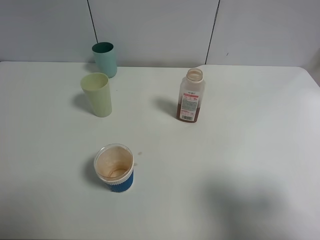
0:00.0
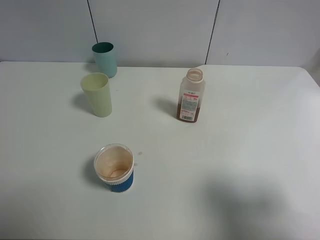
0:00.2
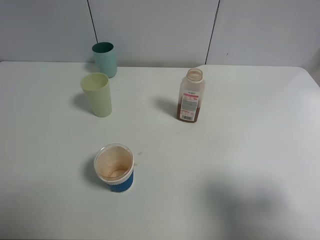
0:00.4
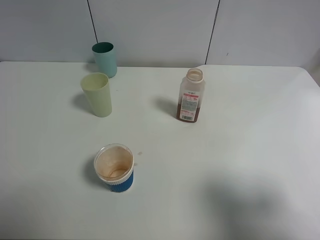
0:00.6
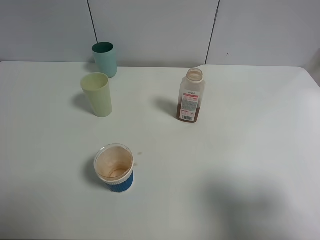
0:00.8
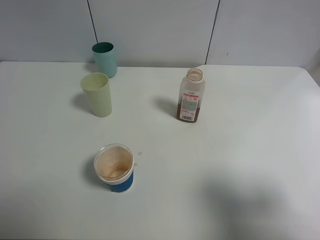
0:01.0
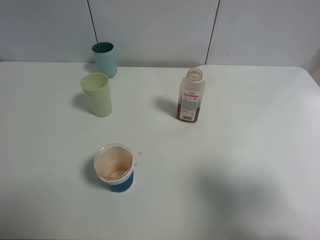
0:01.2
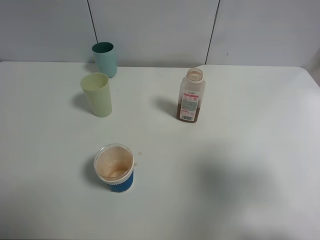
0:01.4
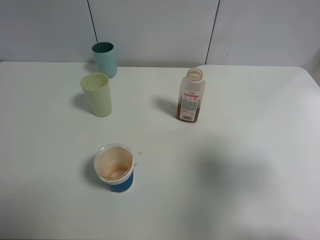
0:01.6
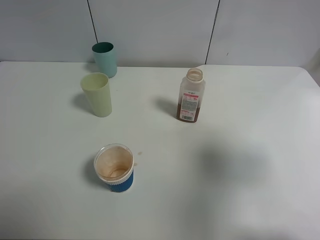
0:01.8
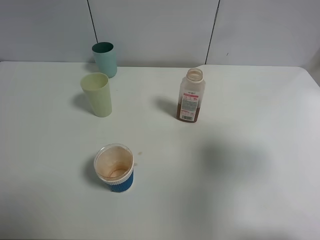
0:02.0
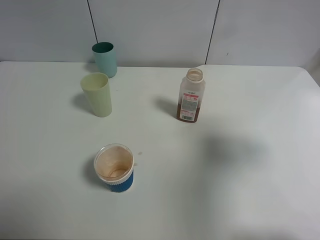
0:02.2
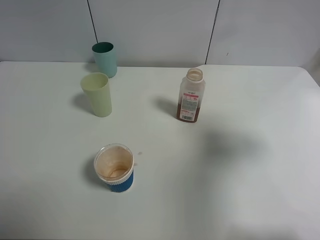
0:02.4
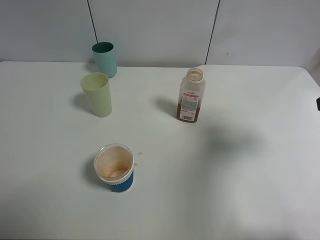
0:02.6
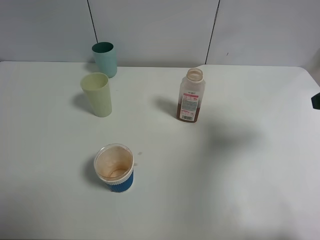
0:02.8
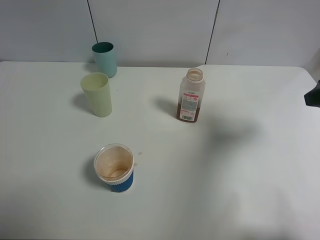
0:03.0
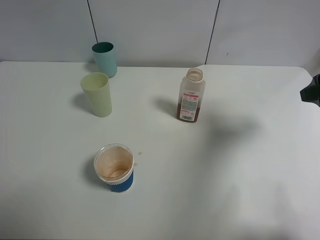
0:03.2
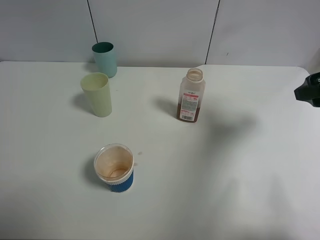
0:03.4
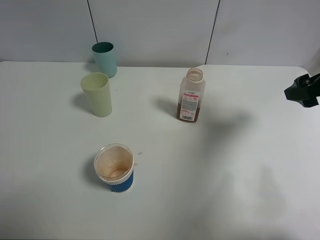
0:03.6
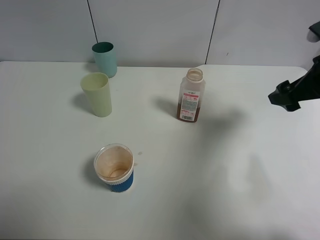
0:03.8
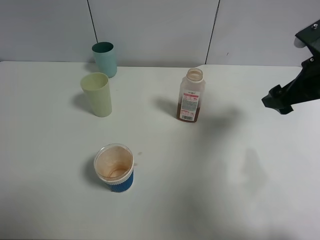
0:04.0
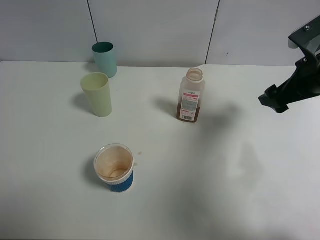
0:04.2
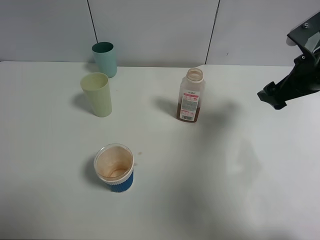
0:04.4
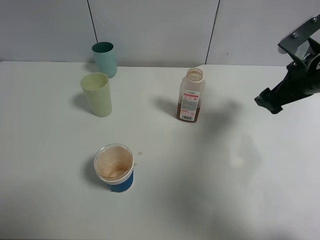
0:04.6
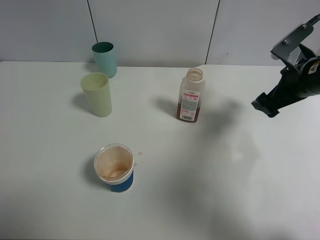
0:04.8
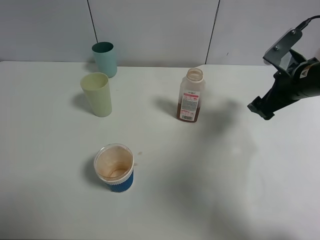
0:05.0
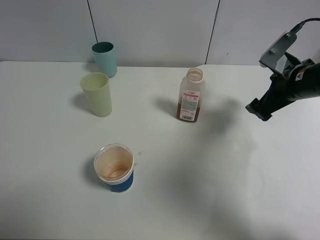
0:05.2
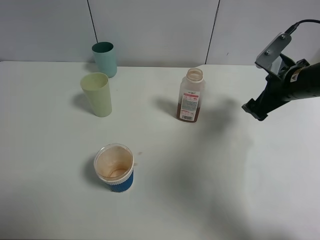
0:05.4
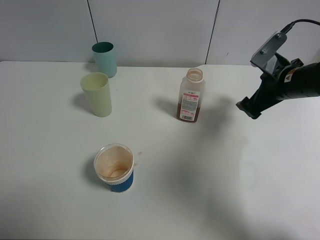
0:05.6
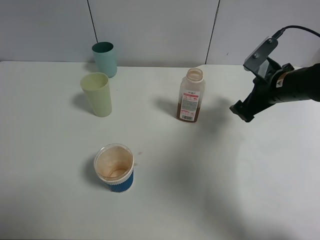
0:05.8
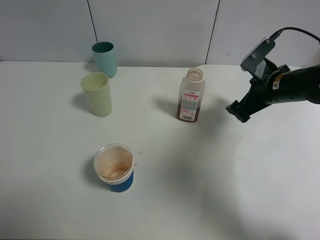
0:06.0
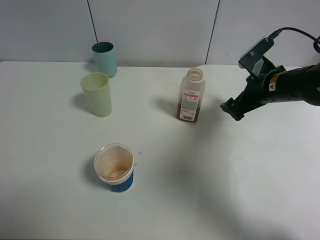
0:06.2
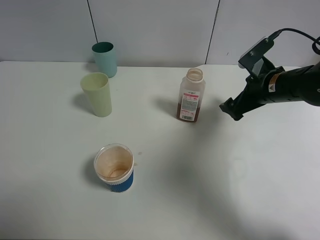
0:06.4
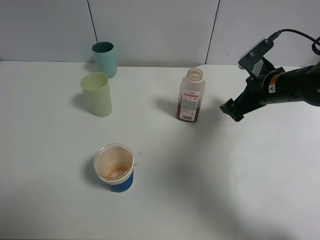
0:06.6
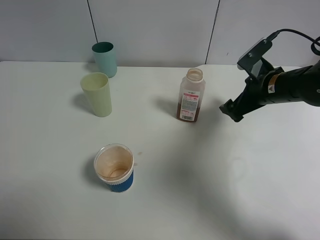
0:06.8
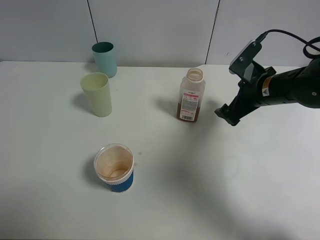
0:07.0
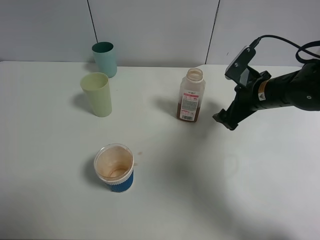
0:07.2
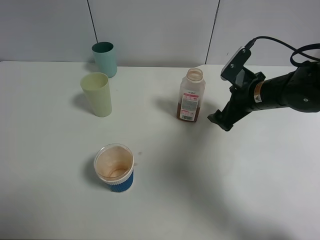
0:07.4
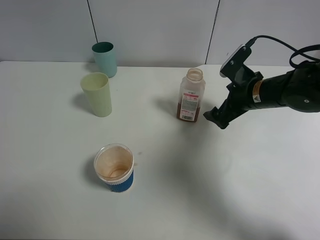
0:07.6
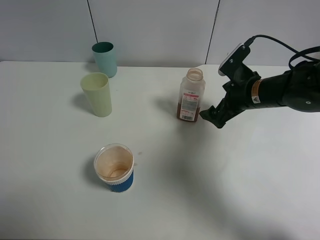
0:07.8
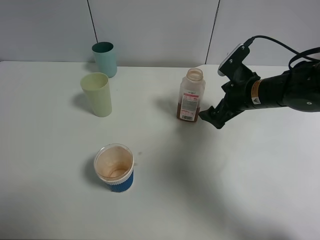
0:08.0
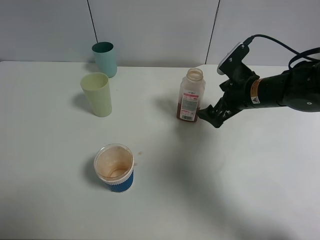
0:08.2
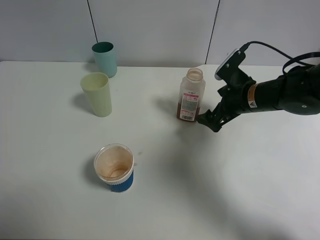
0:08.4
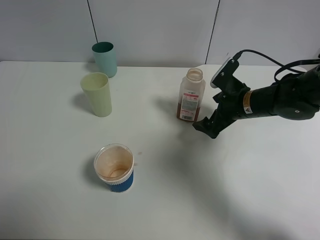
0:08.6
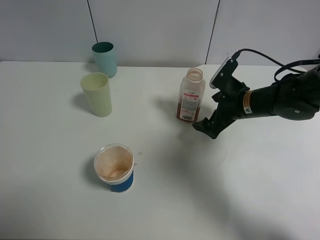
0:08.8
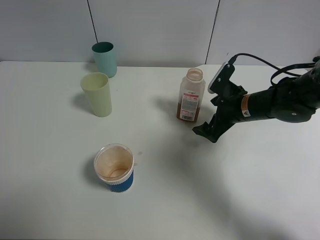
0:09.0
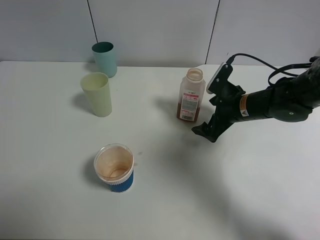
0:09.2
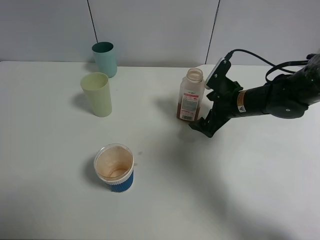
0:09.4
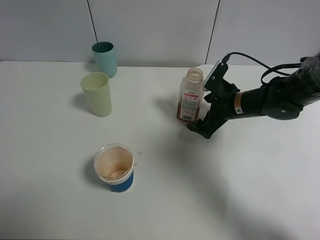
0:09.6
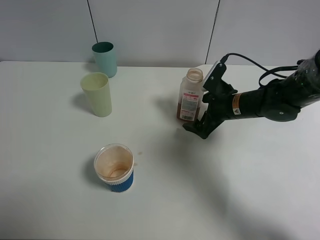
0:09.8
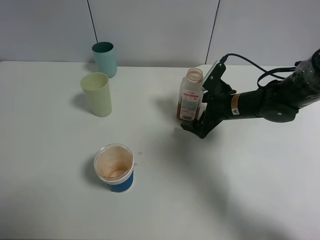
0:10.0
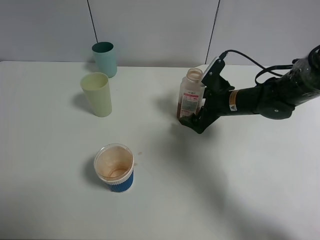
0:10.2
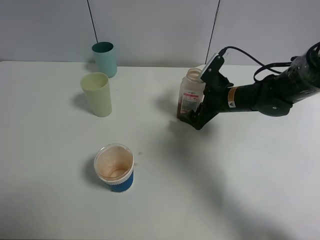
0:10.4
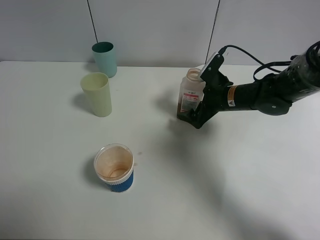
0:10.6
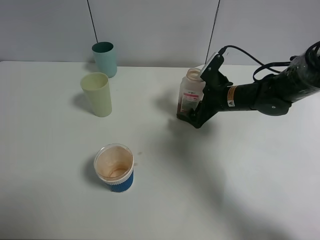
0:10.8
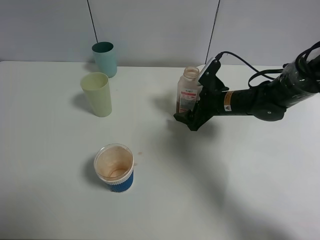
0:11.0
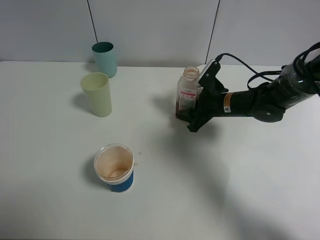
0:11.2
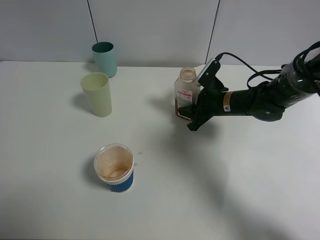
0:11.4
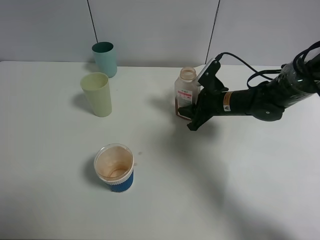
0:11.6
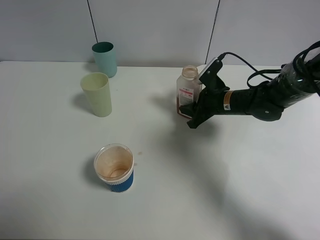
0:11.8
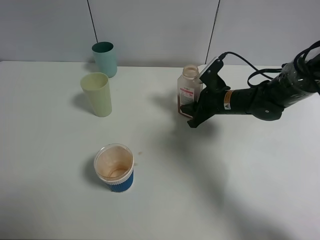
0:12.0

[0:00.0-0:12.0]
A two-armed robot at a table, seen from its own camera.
Task of the whole recording: use a clamp to hold the bottle of the drink, pour the beverage into a random cup, then clamp the cup containing the drink and pour the drink into another random cup.
0:00.0 to 0:01.6: The right gripper is displaced forward by approximately 5 cm.
0:01.6 to 0:03.0: The right gripper shifts approximately 10 cm forward.
0:03.0 to 0:04.4: The right gripper is displaced forward and downward by approximately 10 cm.
0:04.4 to 0:06.0: The right gripper heads downward, covering about 5 cm.
0:06.0 to 0:07.6: The grippers move only a little.
0:07.6 to 0:09.0: The grippers stay close to where they were, moving slightly.
0:09.0 to 0:10.4: The grippers move only a little.
0:10.4 to 0:12.0: The right gripper closes its fingers.

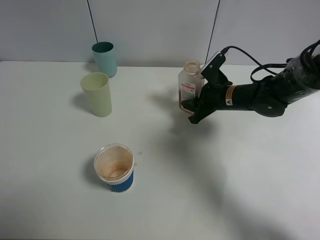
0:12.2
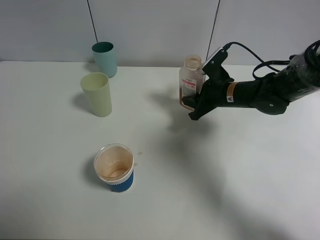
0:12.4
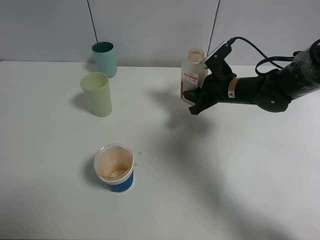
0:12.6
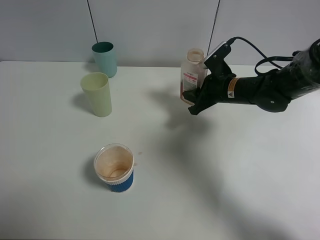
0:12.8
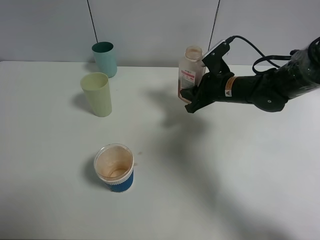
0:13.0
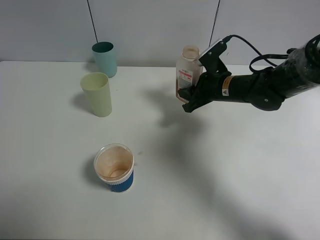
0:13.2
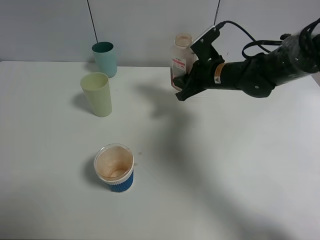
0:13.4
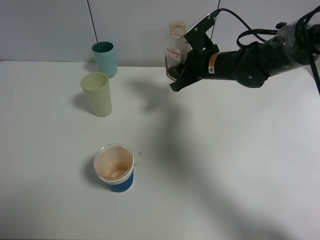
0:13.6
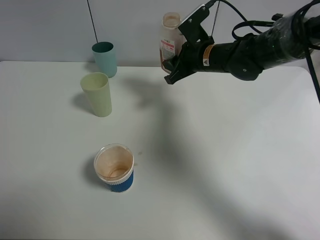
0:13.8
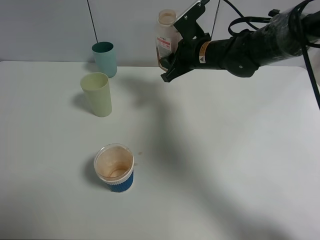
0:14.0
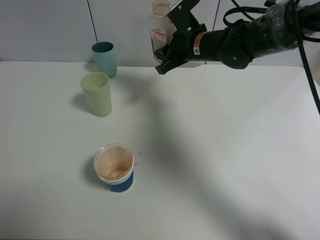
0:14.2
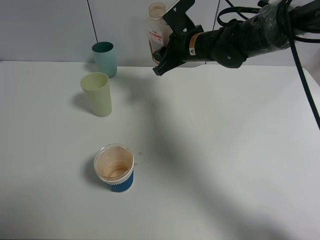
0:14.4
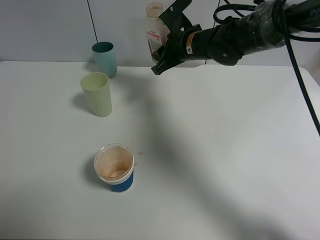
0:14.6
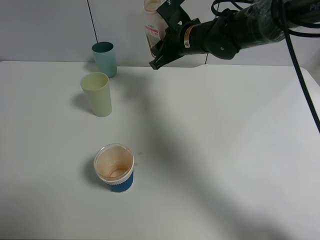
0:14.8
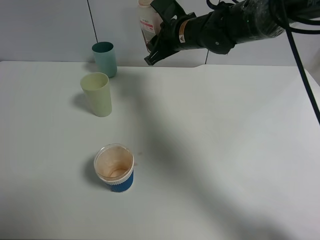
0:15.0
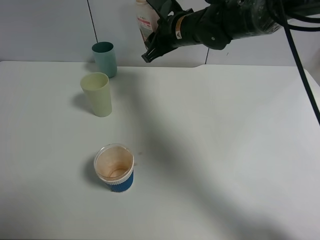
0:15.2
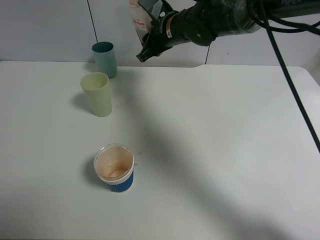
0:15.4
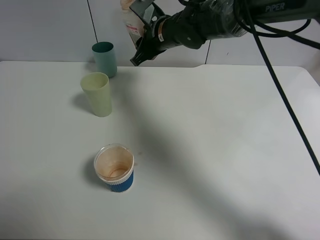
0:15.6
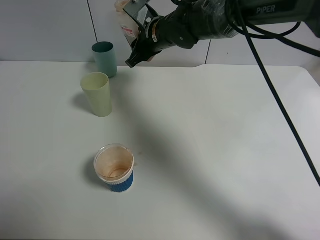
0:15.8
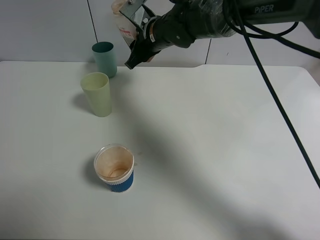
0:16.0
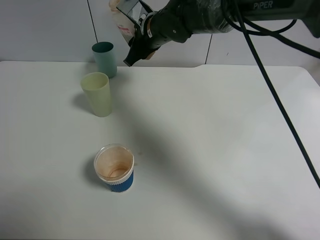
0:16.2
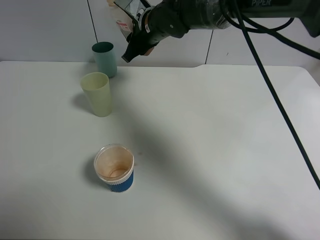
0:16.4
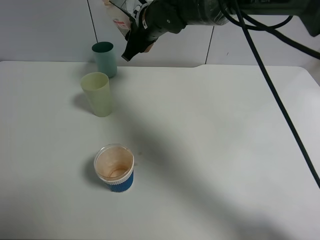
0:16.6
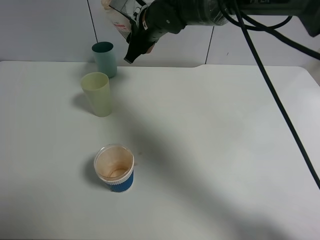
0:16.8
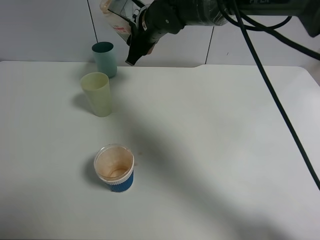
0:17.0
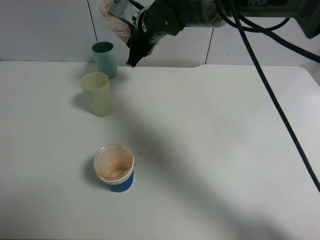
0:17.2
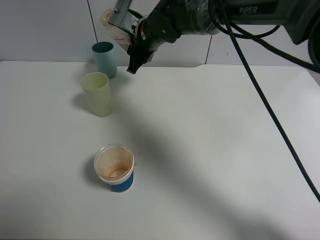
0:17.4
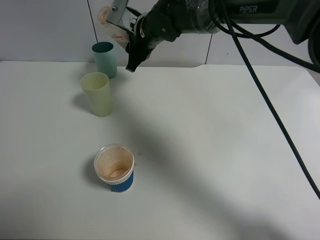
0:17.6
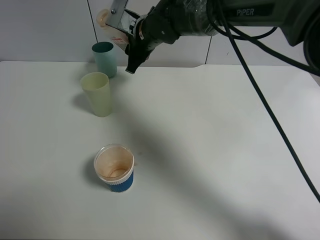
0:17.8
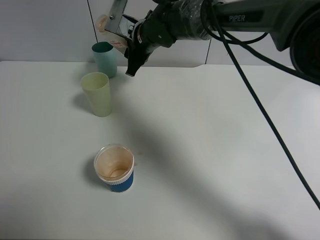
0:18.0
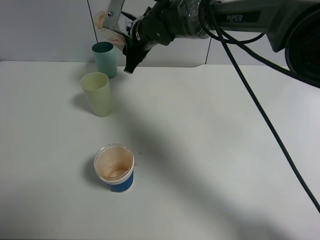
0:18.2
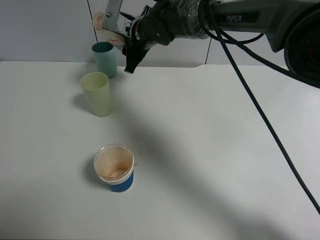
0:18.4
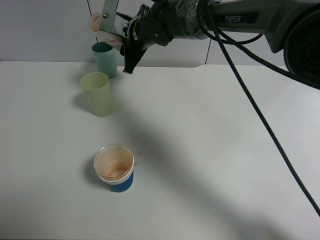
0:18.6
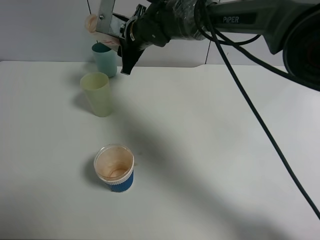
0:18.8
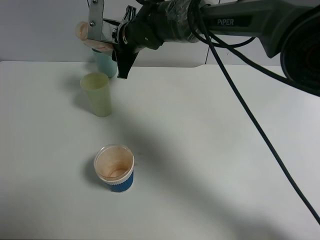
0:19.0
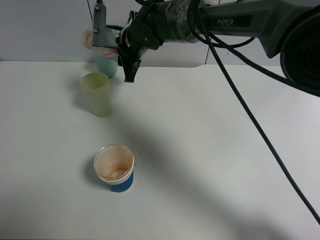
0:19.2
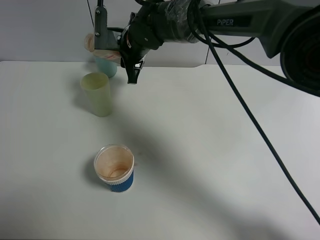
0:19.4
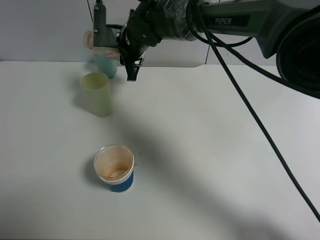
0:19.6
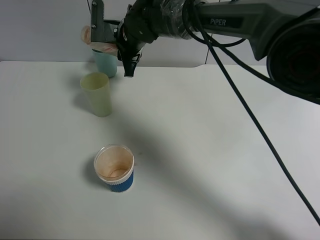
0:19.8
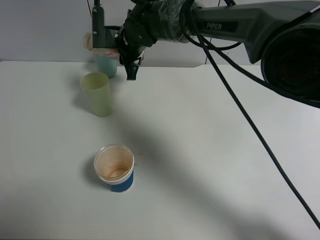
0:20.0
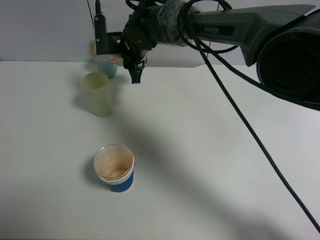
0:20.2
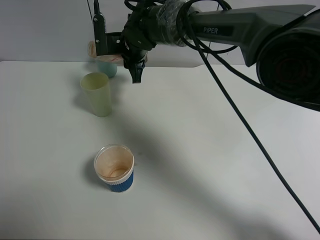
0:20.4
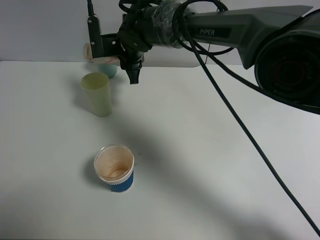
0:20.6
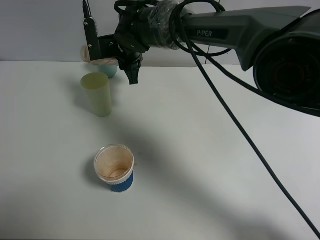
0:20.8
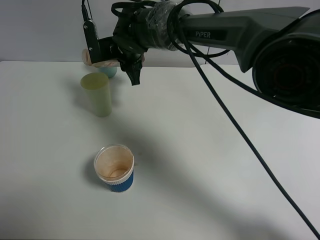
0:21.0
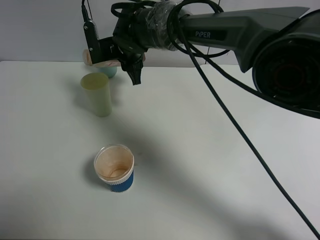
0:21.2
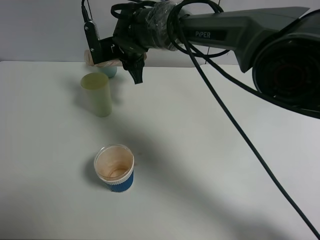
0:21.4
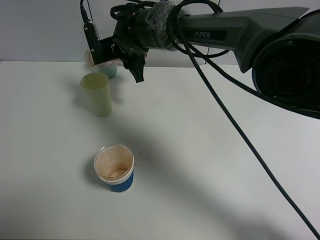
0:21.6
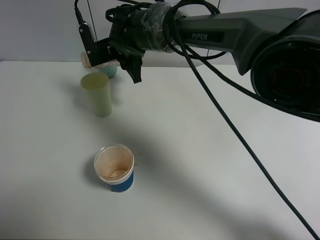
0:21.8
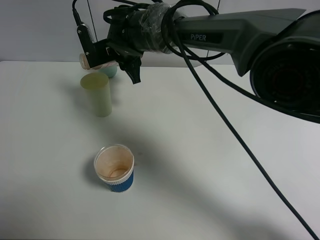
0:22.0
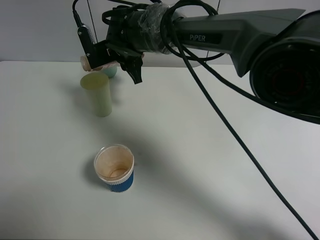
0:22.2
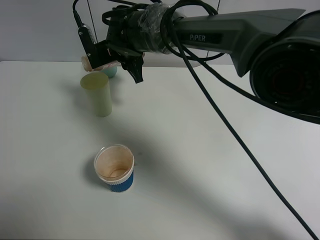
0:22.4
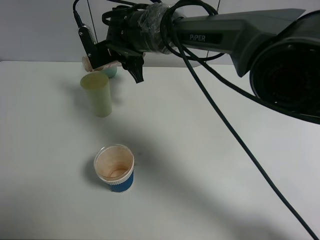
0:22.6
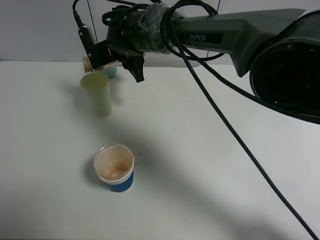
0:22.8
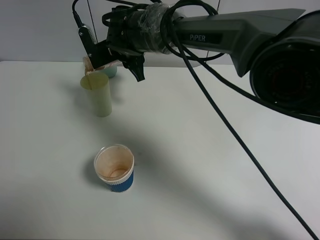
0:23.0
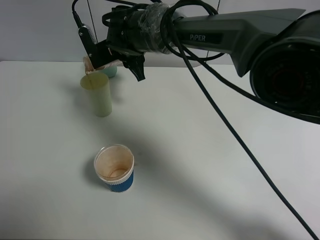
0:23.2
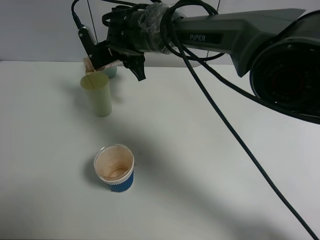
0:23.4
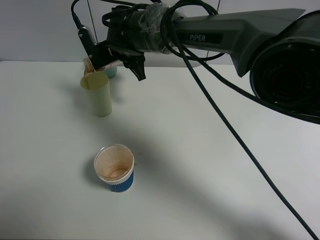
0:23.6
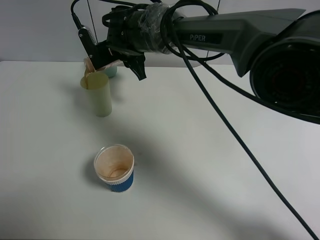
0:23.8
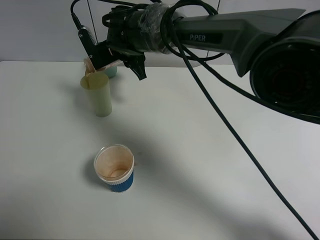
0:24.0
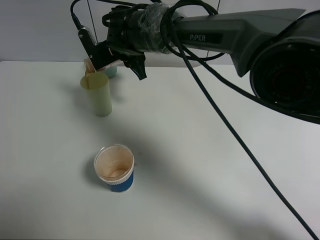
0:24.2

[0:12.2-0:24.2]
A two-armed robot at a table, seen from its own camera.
Task of the whole recording: use a clamp to hold the bottle of the drink, pour the beverage into a random cup, then clamp the cup containing the drink and pour the drink into another random cup.
0:12.2 to 0:13.8: The right gripper travels upward and to the left by about 10 cm.
0:13.8 to 0:15.2: The right gripper shifts about 5 cm to the left.
0:15.2 to 0:16.6: The right gripper is displaced to the left by roughly 5 cm.
0:16.6 to 0:18.2: The grippers move only a little.
0:18.2 to 0:19.8: The grippers move only a little.
0:19.8 to 0:21.2: The grippers make only small movements.
0:21.2 to 0:24.2: The grippers make only small movements.
